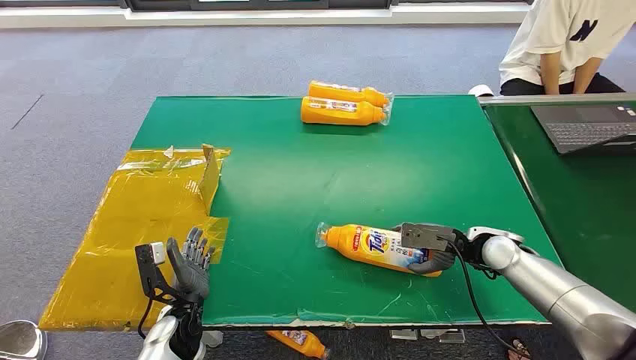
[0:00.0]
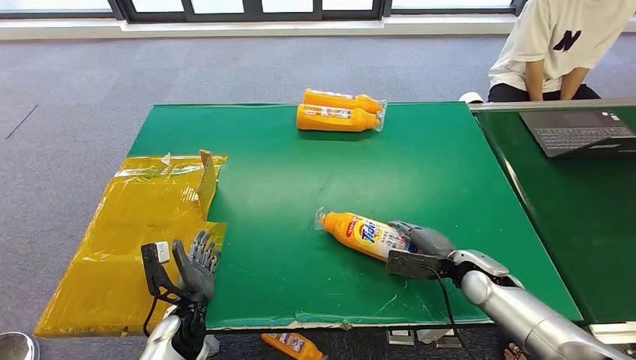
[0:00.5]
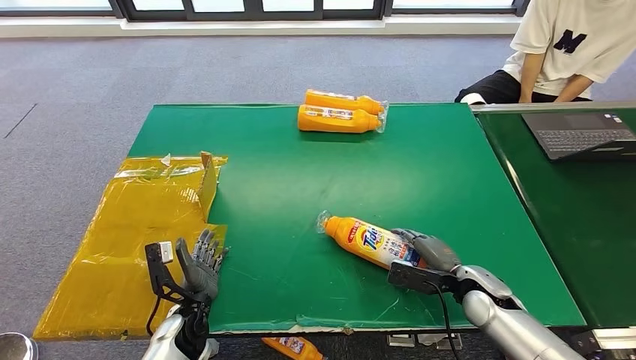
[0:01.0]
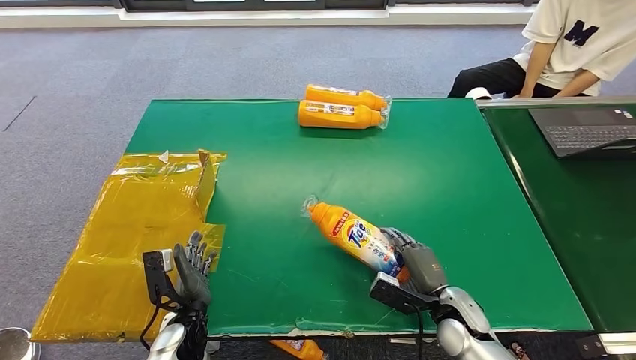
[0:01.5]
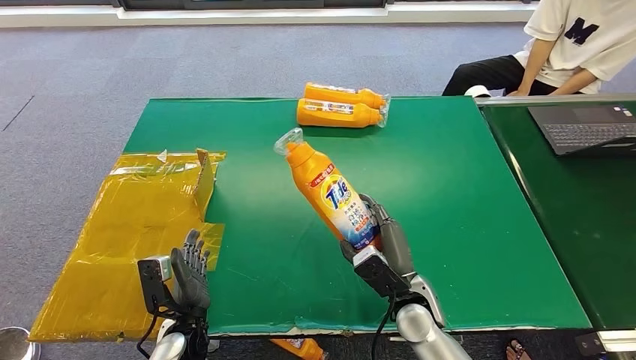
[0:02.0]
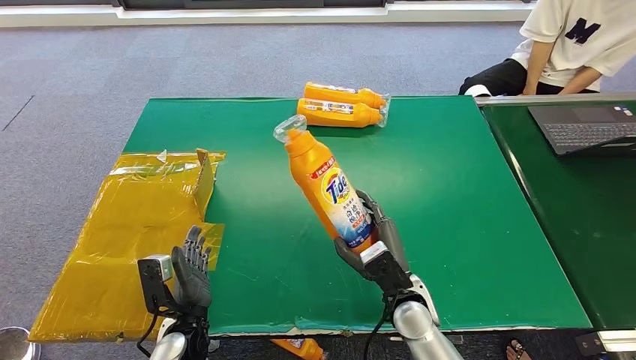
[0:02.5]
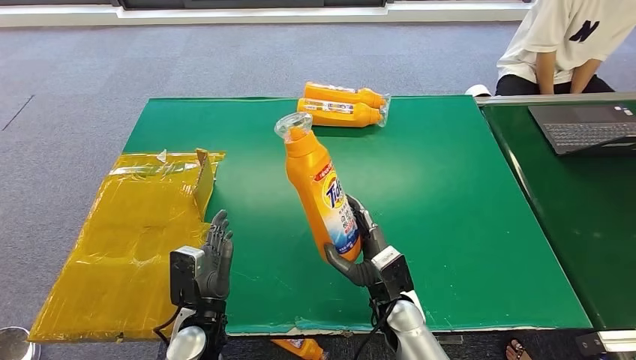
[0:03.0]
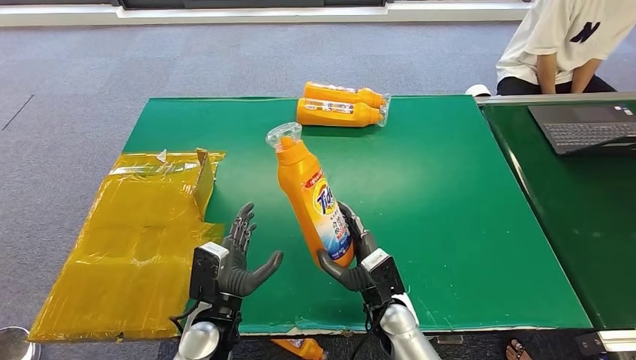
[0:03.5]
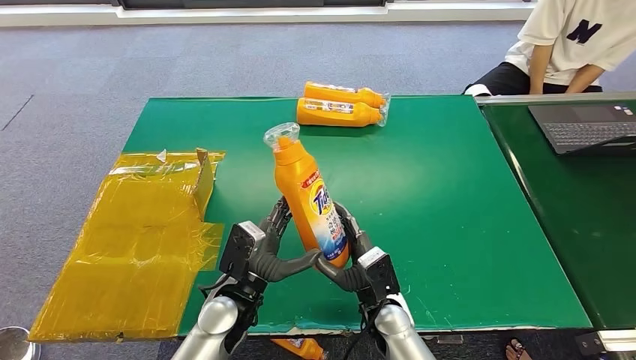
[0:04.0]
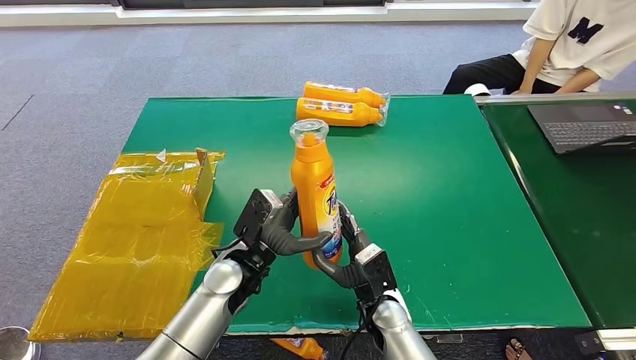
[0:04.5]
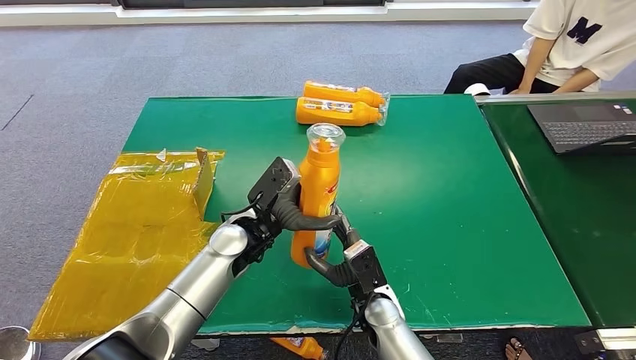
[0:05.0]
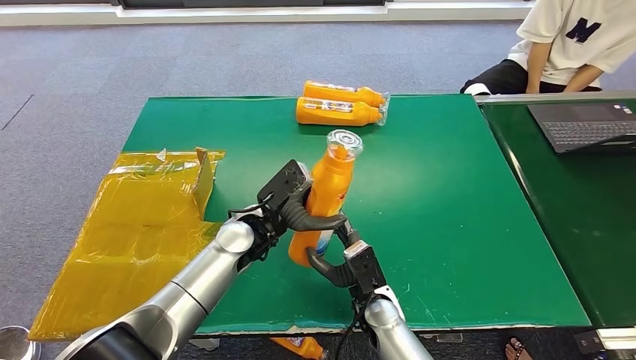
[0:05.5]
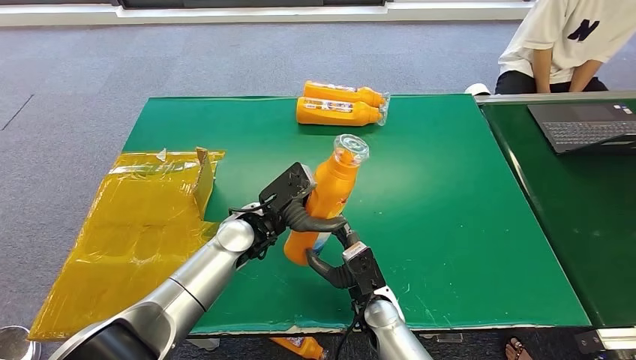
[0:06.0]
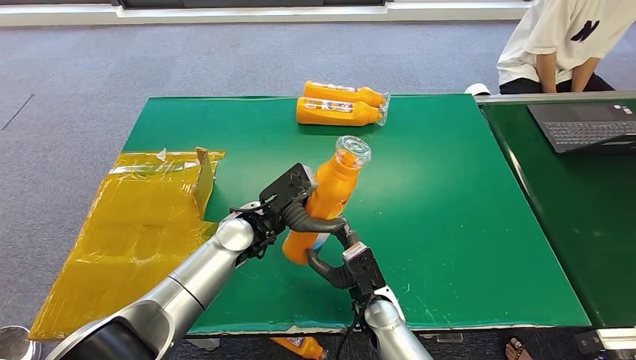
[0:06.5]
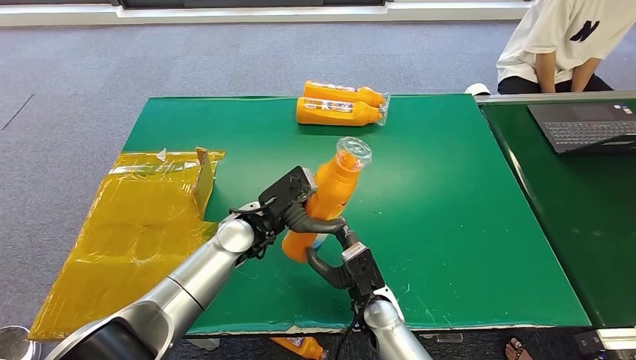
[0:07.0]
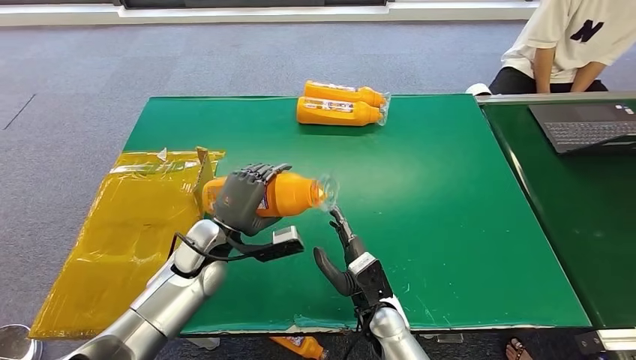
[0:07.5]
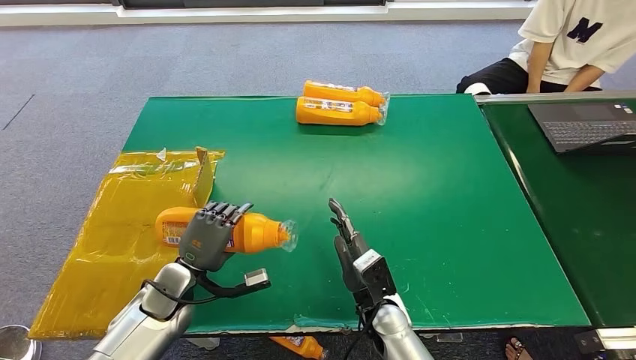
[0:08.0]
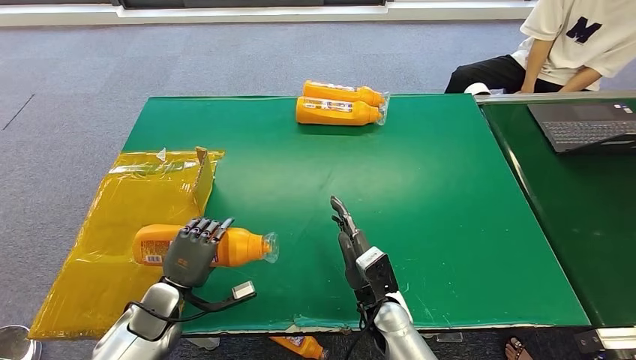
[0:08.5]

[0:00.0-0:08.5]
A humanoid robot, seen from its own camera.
Step, 0:00.0 to 0:02.0: Pick up the bottle from the table.
Step, 0:02.5 to 0:08.5: Turn the bottle to the front side.
0:02.0 to 0:04.0: The right hand travels to the left by some 5 cm, while the left hand goes about 15 cm to the right, upward and forward.
0:04.0 to 0:06.5: The left hand goes about 15 cm forward and upward.
0:06.5 to 0:08.5: The left hand heads to the left, downward and backward, covering roughly 25 cm.

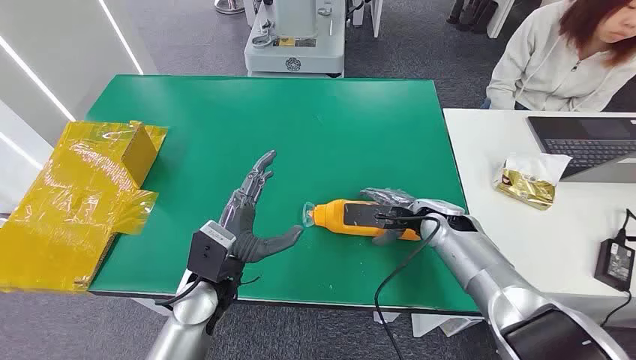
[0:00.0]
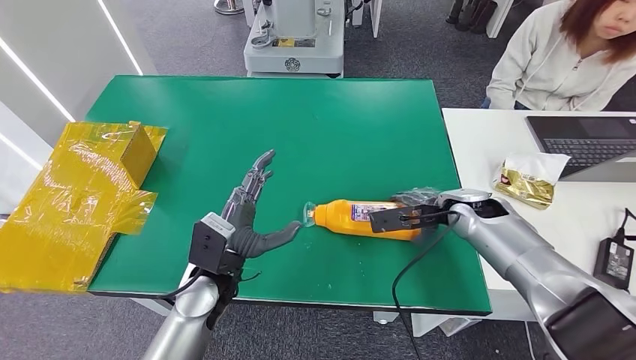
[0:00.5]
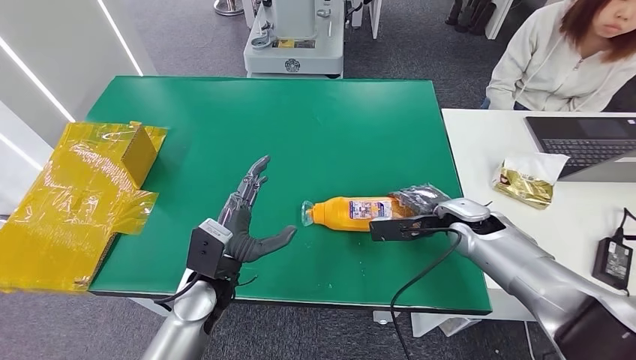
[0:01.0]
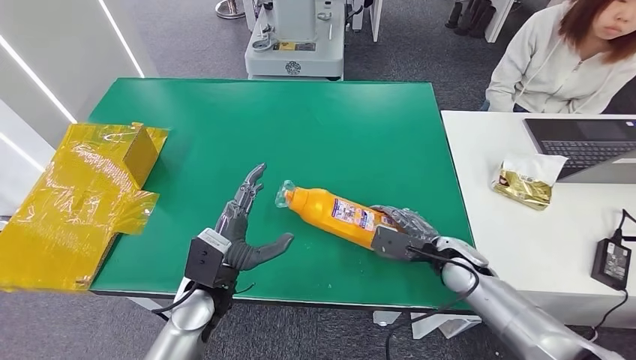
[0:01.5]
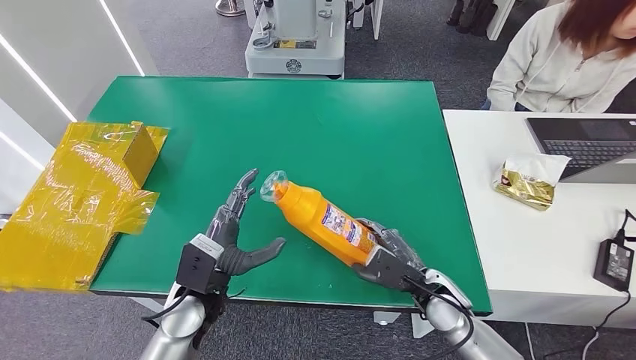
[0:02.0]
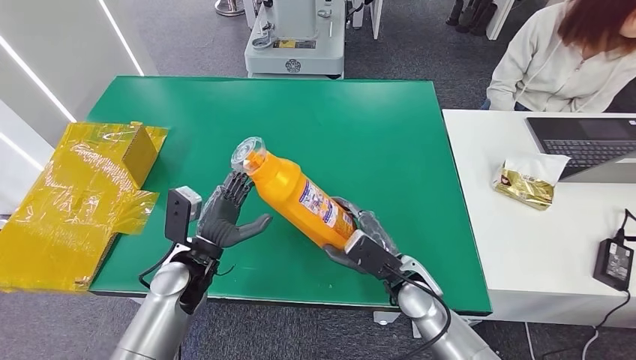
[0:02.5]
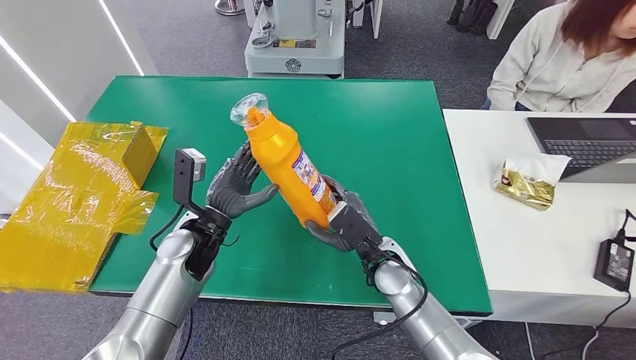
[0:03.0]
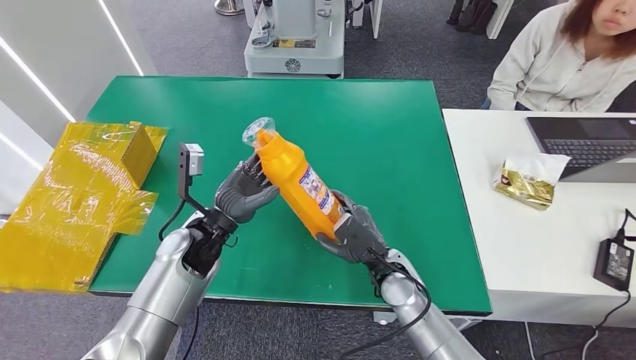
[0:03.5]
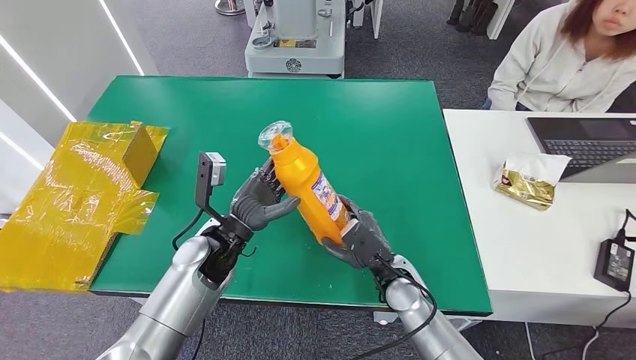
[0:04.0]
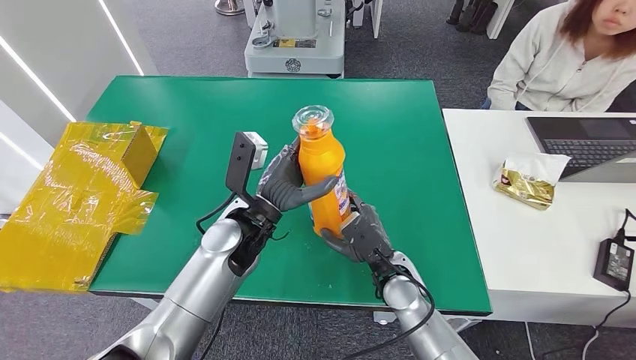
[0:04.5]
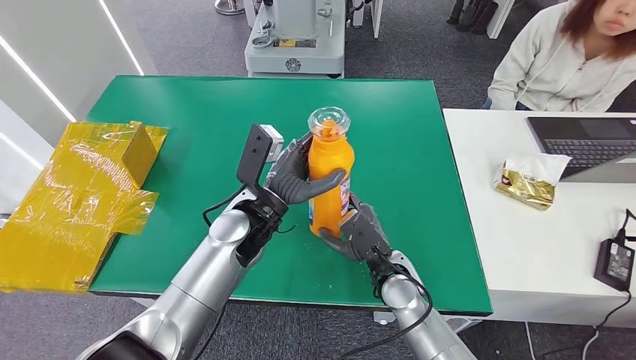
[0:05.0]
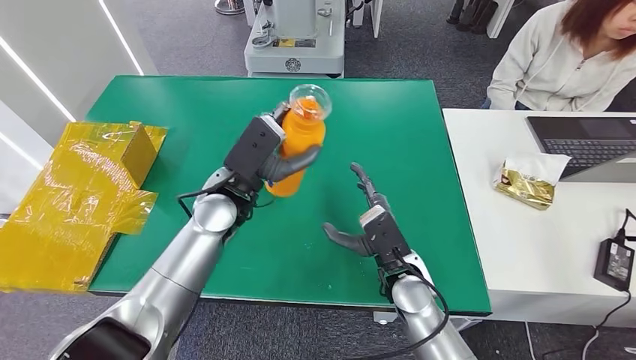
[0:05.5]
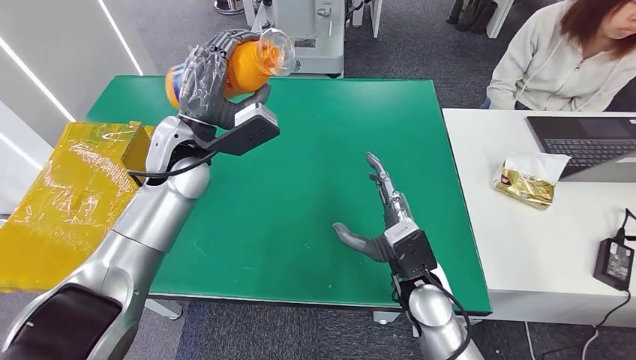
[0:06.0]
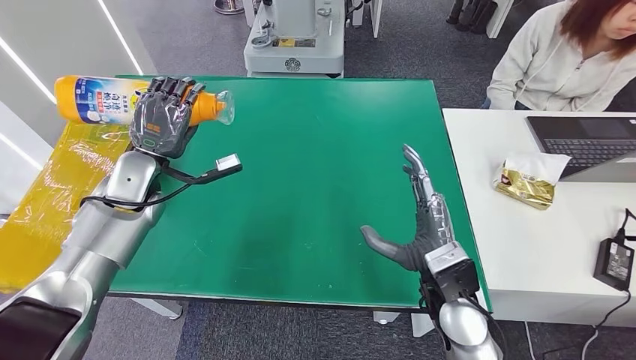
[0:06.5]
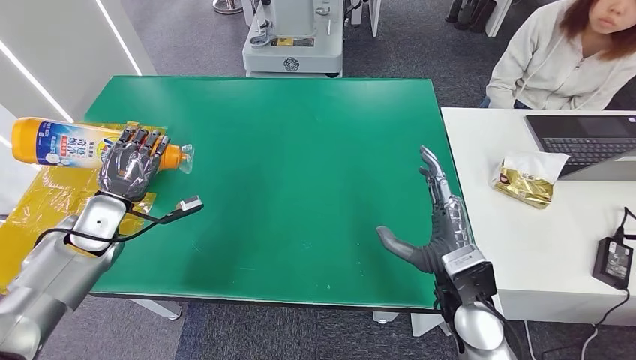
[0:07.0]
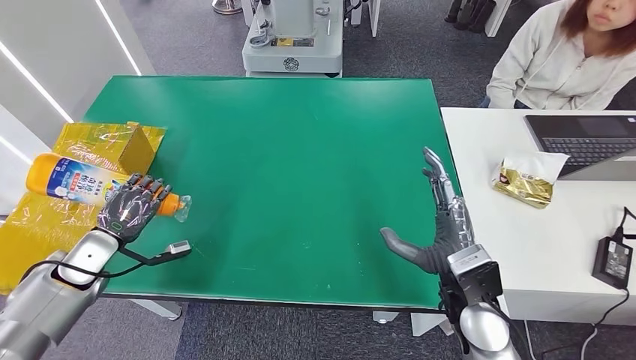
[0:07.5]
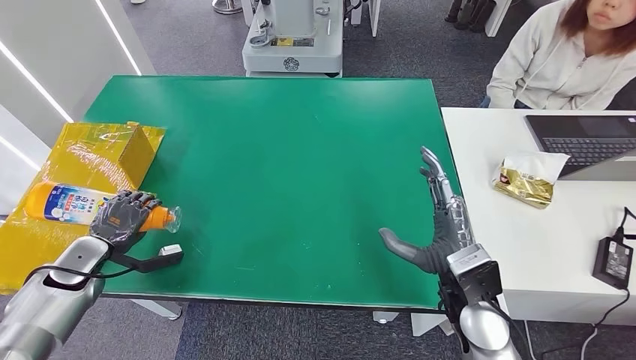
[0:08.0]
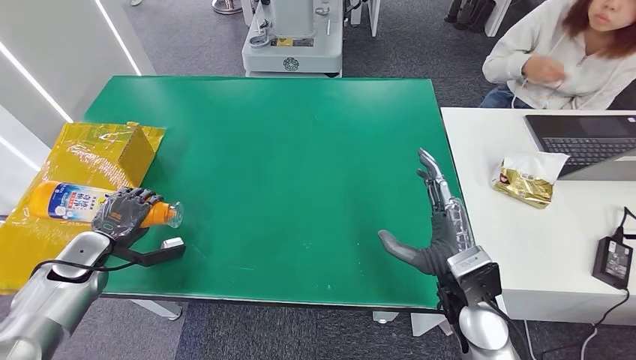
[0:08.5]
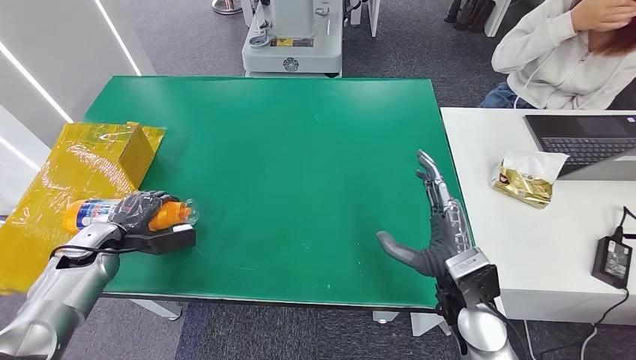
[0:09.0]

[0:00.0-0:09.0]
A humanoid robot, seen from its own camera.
Step, 0:00.0 to 0:02.0: Pick up the bottle from the table.
0:02.0 to 0:04.5: The right hand travels to the left by approximately 10 cm; the left hand travels forward, upward and to the right by approximately 15 cm.
0:07.0 to 0:09.0: The left hand is displaced downward by about 5 cm.

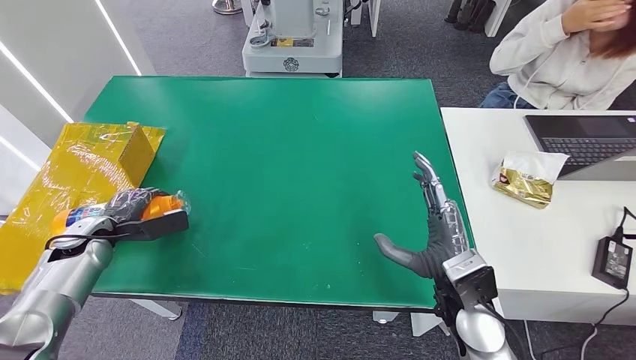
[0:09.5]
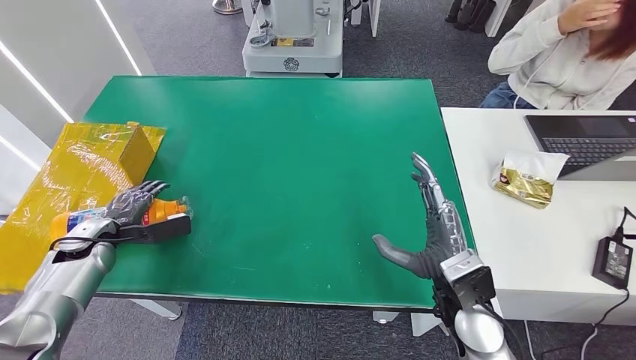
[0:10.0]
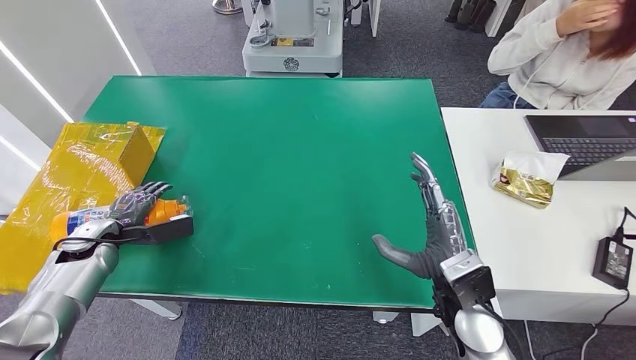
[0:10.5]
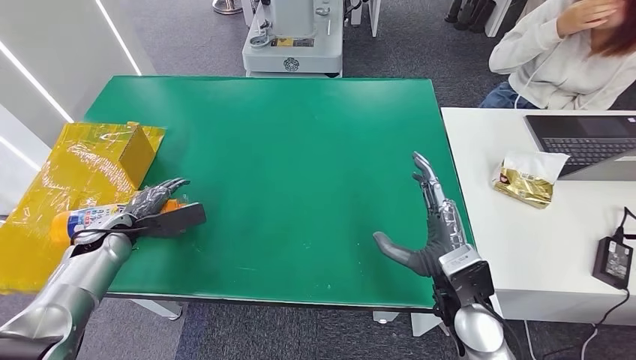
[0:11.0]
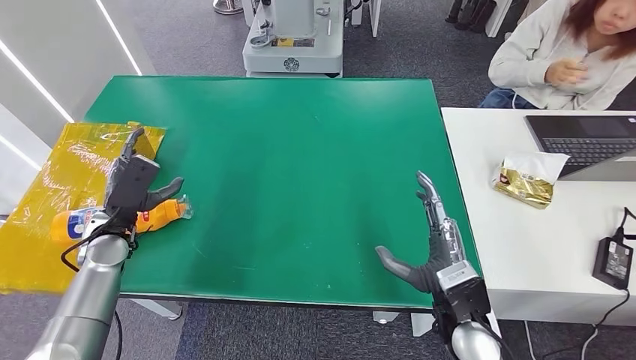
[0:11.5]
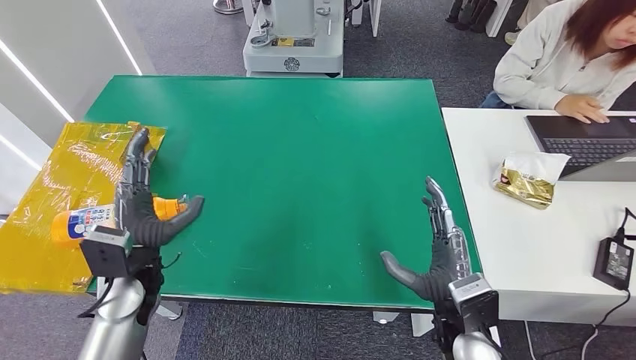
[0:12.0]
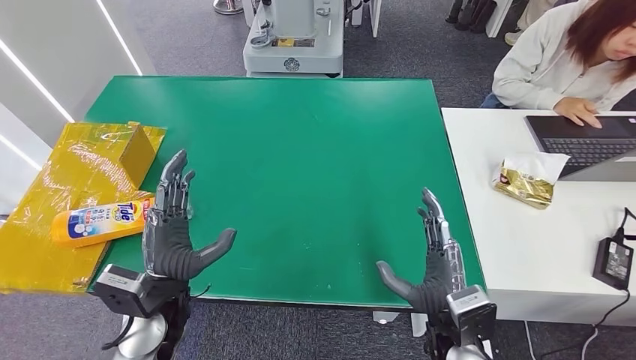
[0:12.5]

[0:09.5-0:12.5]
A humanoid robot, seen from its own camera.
Step, 0:09.5 to 0:12.5: Turn the bottle to the front side.
0:09.5 to 0:11.0: There are only small adjustments of the hands.
0:11.0 to 0:12.5: The left hand is displaced to the right and backward by approximately 25 cm; the right hand moves roughly 5 cm.
